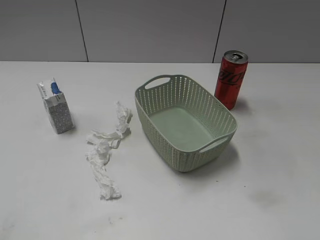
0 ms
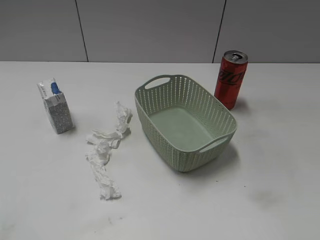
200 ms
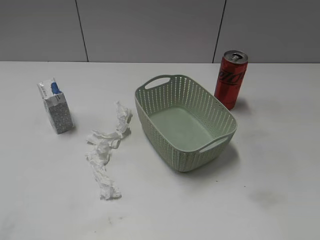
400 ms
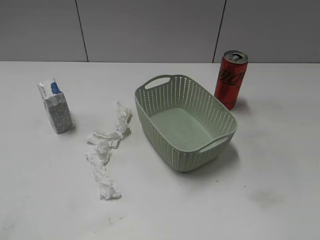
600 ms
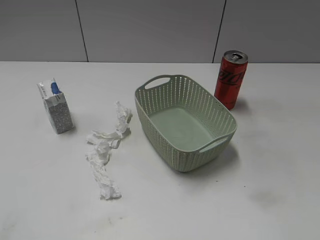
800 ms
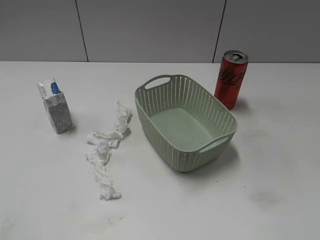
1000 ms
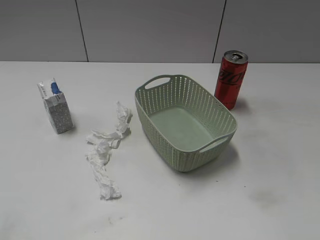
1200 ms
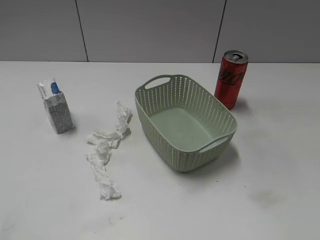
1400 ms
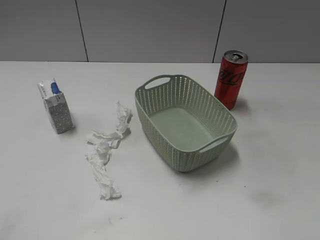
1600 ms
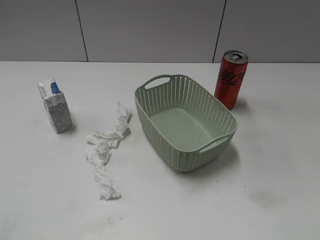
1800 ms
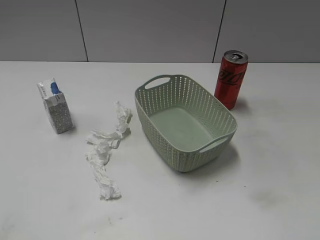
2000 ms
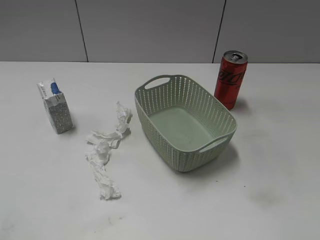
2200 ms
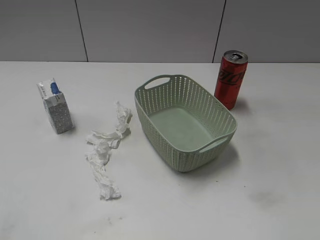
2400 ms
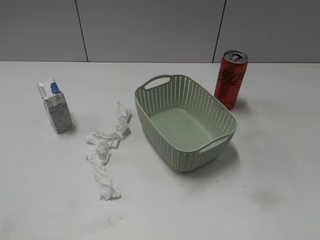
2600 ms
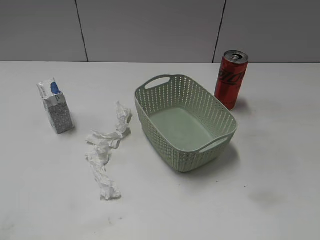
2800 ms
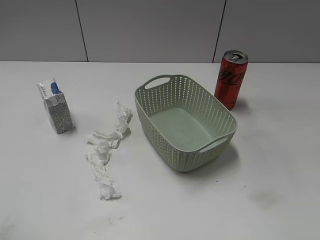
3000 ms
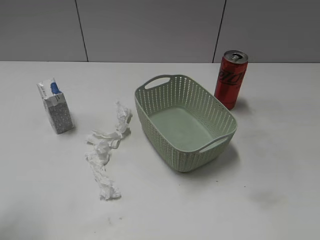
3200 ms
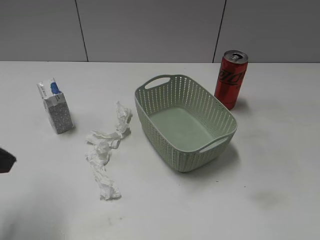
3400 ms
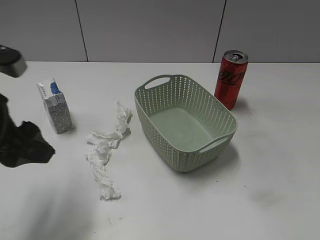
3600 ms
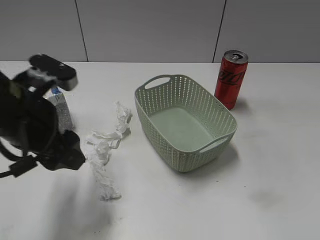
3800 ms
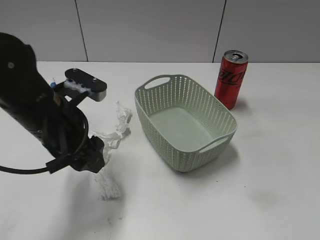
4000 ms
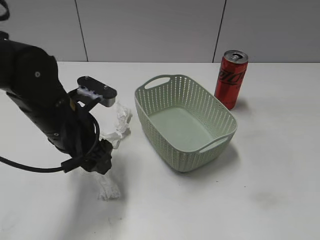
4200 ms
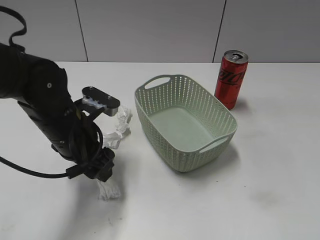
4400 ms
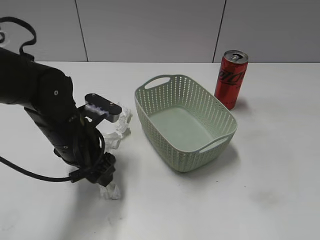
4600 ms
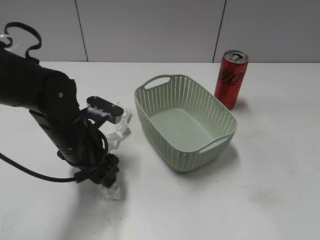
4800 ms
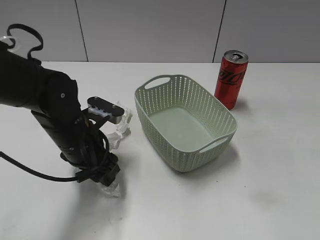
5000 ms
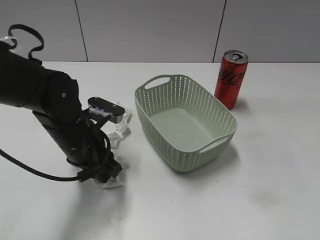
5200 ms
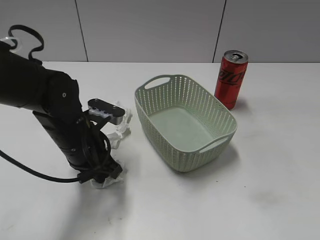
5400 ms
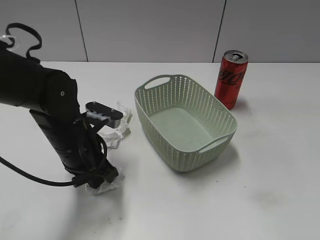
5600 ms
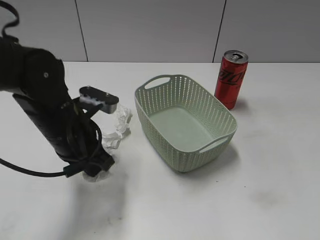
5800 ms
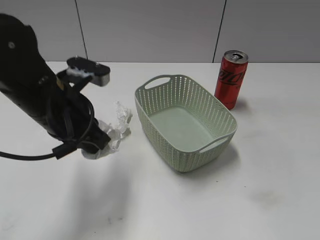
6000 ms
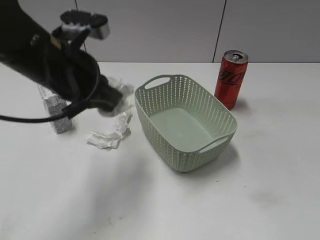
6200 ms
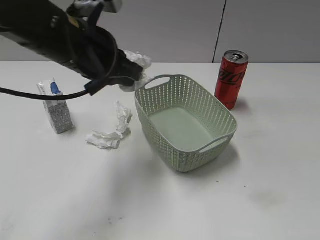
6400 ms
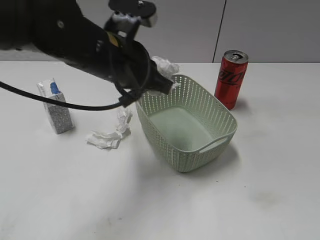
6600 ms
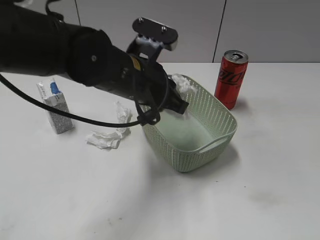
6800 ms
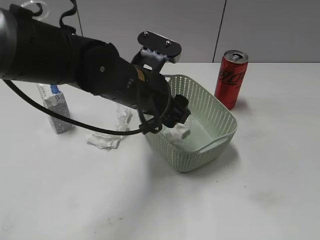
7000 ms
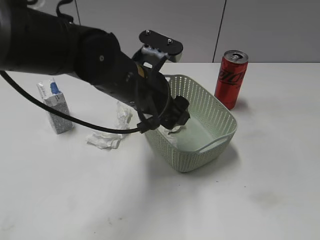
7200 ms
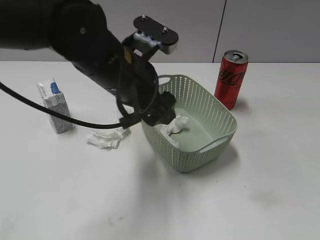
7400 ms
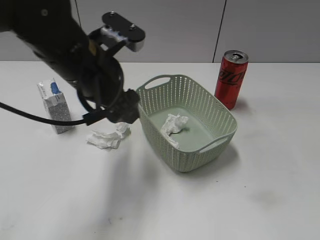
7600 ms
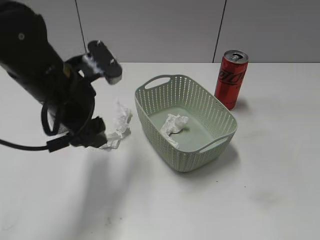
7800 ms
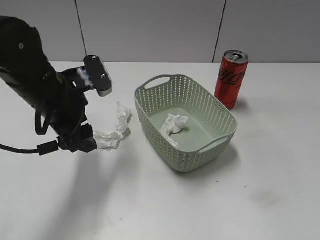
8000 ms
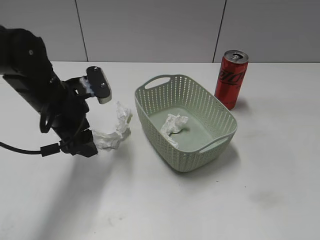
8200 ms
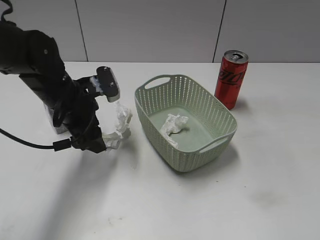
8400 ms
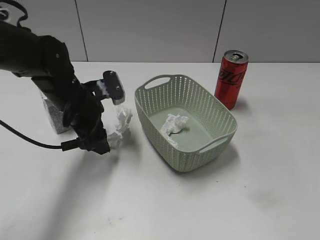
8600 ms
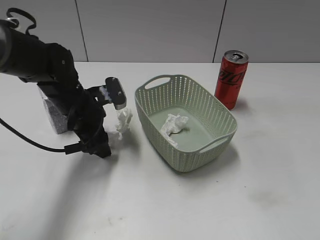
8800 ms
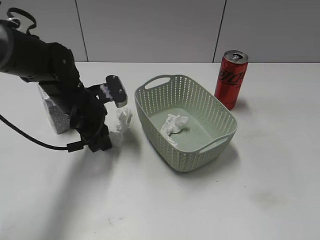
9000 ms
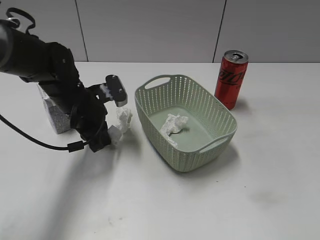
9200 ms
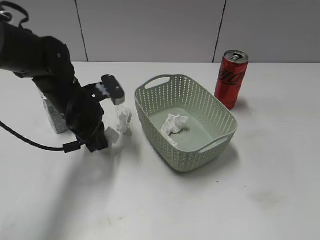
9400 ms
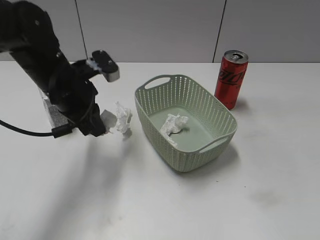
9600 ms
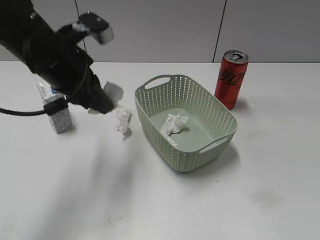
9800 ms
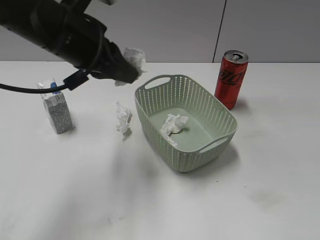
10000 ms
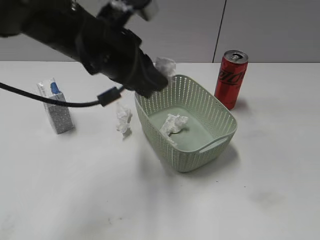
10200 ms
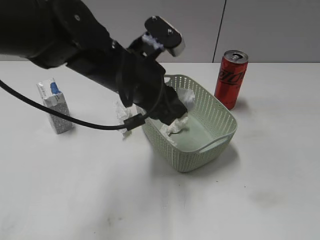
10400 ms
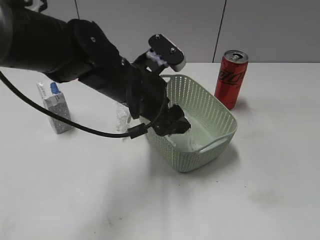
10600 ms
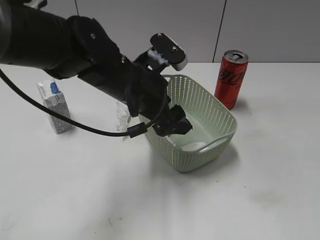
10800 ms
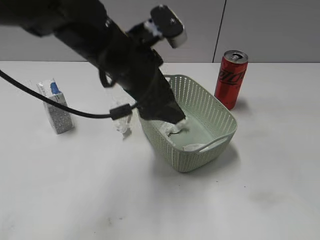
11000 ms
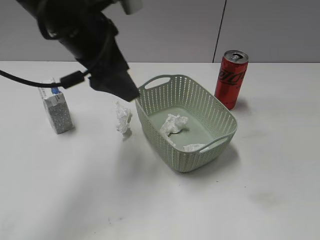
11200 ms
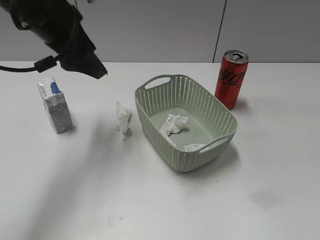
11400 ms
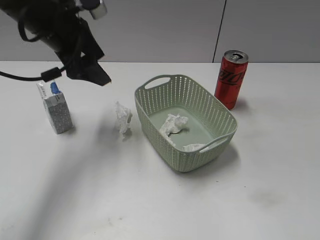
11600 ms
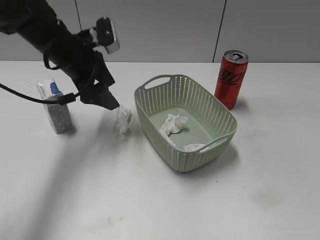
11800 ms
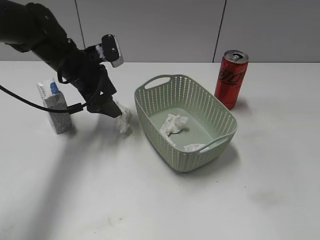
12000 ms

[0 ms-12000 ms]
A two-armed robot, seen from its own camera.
Step, 3400 ms to 5400 ms: Grasp the waste paper with left gripper.
Step, 5600 ms to 7000 ms: Place the waste paper in the basket with left gripper.
Step, 7200 ms to 9200 ms: Grasp the waste paper with left gripper.
Step, 9400 ms to 10600 ms: Place the waste paper in the basket with left gripper.
3000 ms to 4400 ms: The left gripper travels forward, to the right and downward by about 30 cm.
4400 ms to 6000 ms: The left gripper closes up.
6000 ms to 7600 ms: The left gripper moves to the right and upward, roughly 5 cm, and opens its fingers.
7600 ms to 9000 ms: The left gripper goes some 15 cm downward, forward and to the left, and closes up.
9000 ms to 10400 ms: The left gripper moves upward, to the right and backward, some 15 cm.
10400 ms to 12000 ms: The left gripper travels forward, to the left and downward by about 15 cm, and opens.

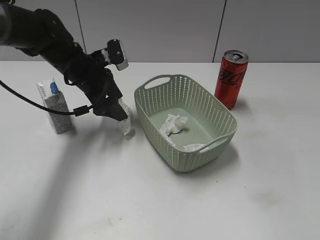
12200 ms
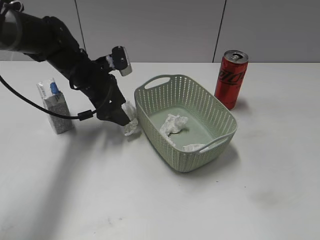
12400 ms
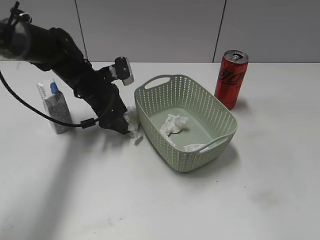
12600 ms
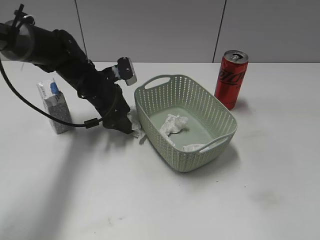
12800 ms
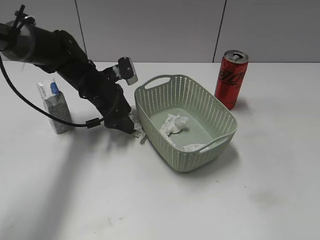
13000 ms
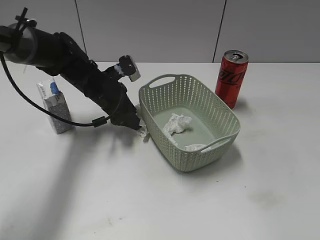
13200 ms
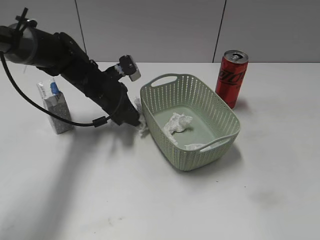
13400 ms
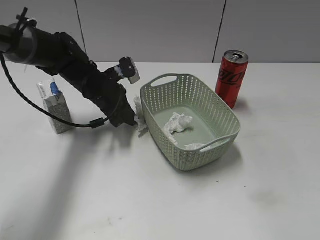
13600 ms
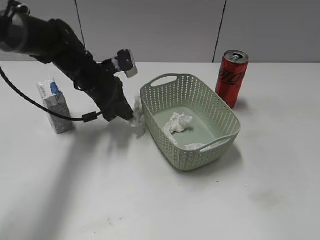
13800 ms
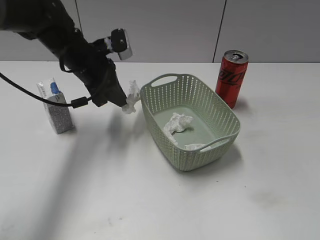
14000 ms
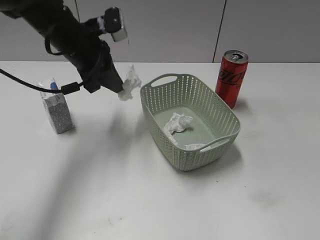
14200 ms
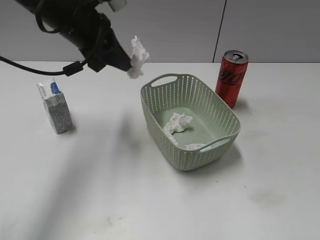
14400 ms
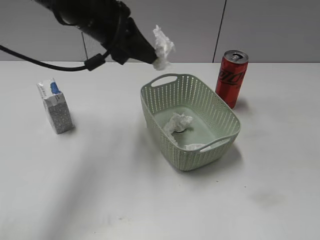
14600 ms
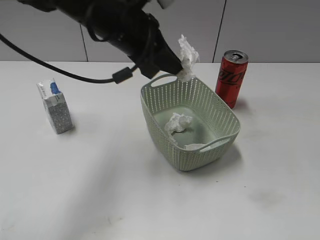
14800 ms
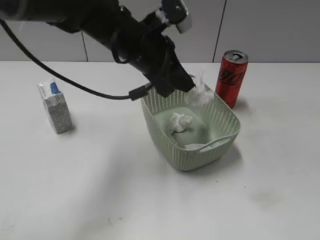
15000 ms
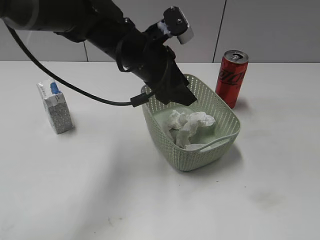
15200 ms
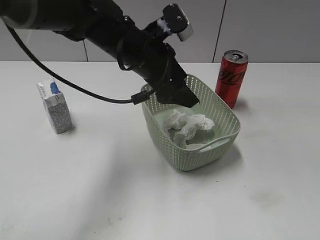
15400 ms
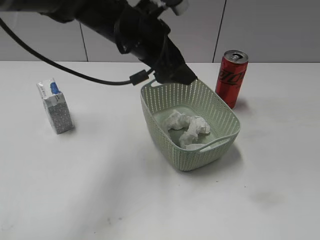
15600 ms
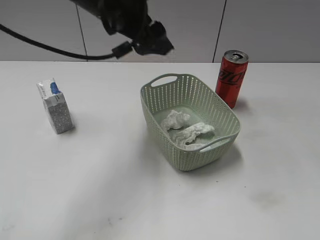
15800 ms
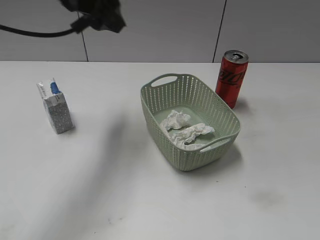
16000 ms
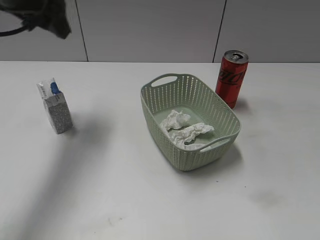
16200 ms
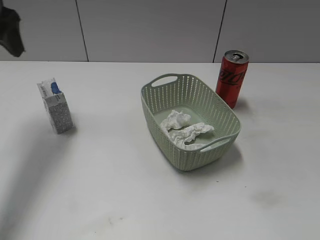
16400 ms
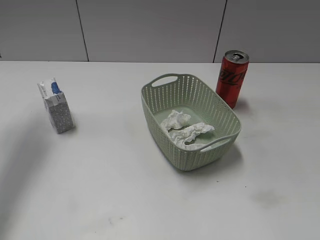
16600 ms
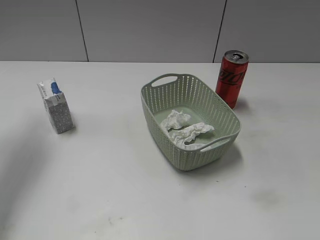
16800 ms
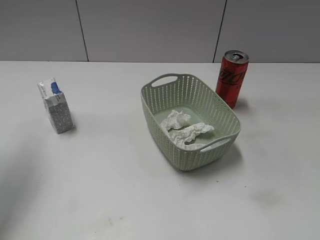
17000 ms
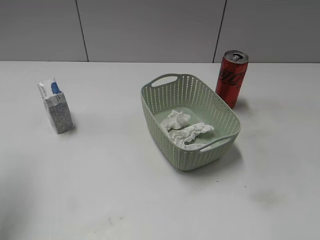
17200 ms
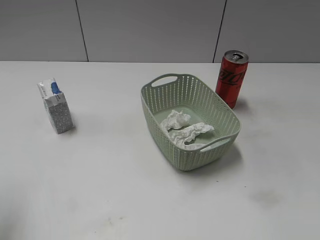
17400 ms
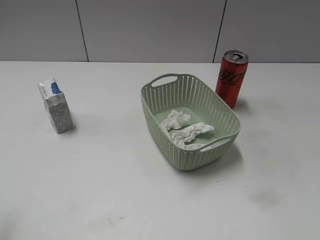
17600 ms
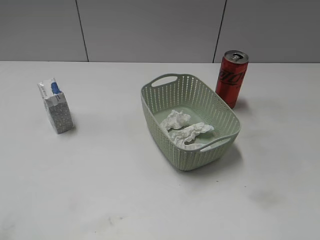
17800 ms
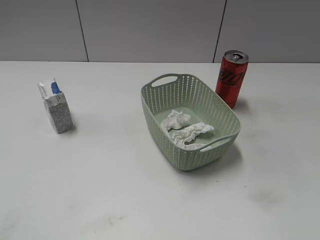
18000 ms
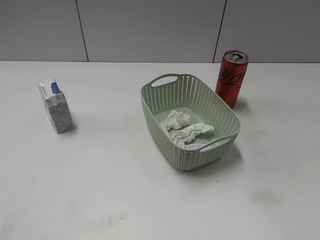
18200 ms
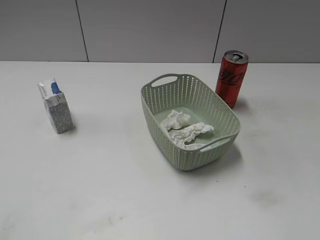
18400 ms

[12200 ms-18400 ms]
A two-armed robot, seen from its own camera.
Step, 12200 ms to 13800 ms: Grasp the waste paper with left gripper.
Step, 14000 ms to 15200 ms: Place the waste paper in the basket with left gripper.
12200 ms to 13800 ms: The left gripper closes.
13800 ms to 15400 ms: The left gripper goes roughly 15 cm upward, to the right and backward, and opens.
15400 ms to 16800 ms: The left gripper shifts about 30 cm to the left.
16800 ms to 18400 ms: The left gripper goes about 35 cm backward.

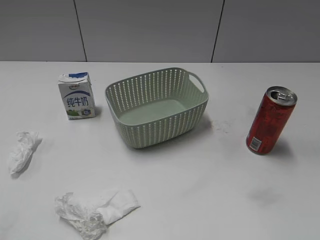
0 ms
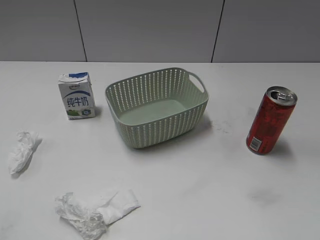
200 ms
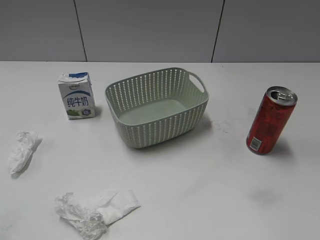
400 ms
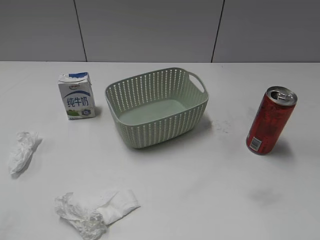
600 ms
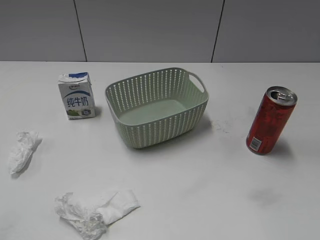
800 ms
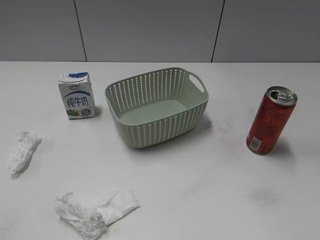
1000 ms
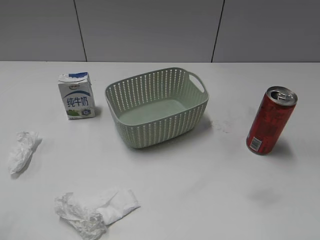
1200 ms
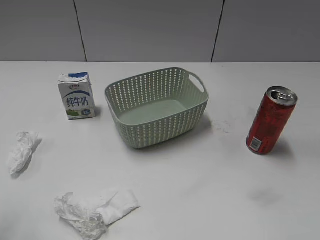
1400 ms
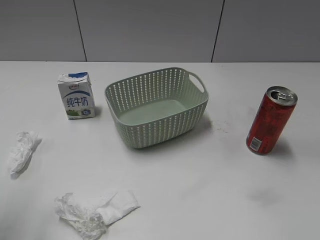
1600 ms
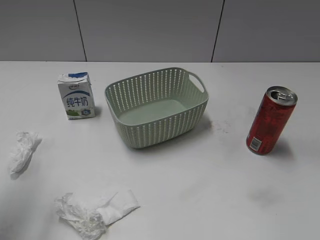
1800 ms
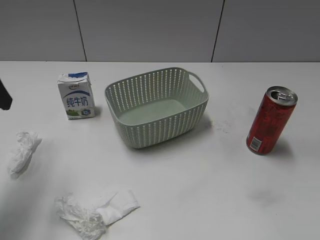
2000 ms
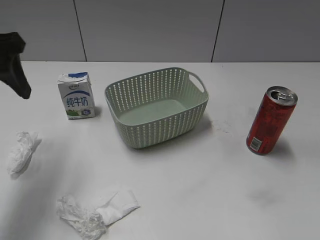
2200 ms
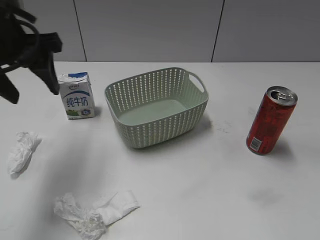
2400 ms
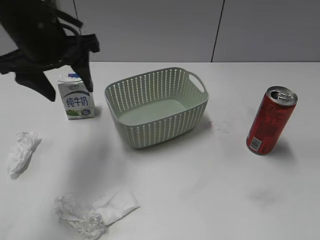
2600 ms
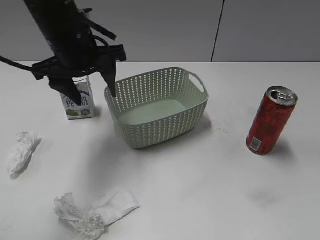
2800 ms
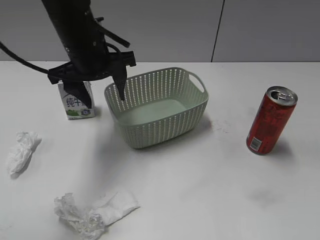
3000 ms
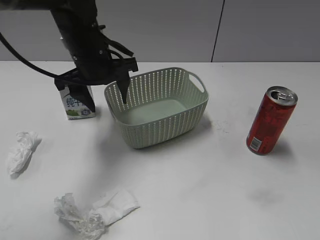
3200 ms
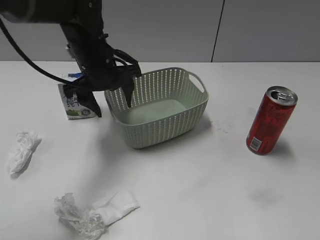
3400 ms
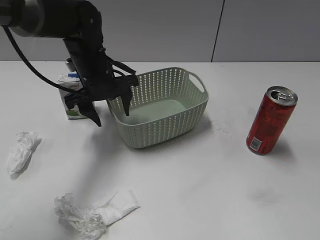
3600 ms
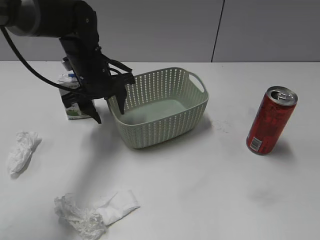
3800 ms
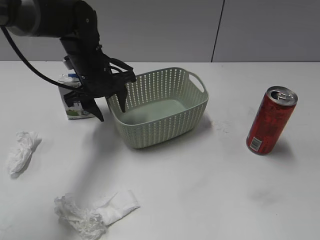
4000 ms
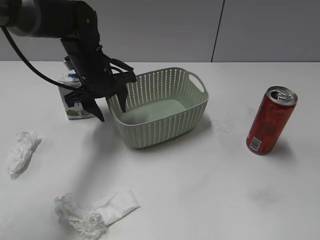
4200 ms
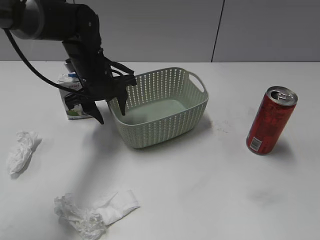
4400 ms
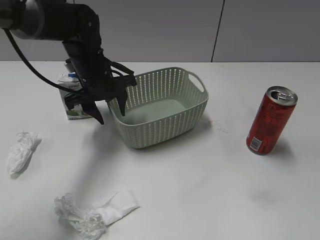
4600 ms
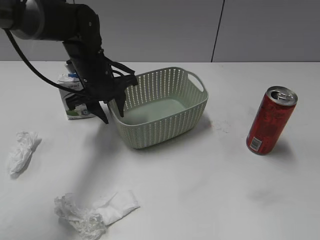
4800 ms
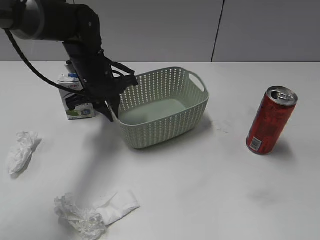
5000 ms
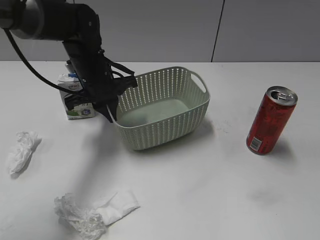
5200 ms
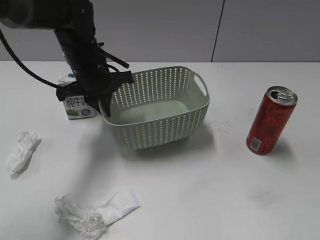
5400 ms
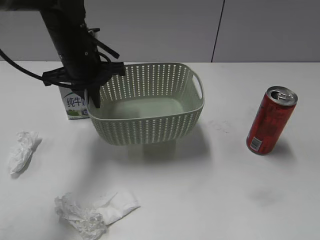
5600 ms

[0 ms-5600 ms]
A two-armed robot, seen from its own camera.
Step, 2000 ms to 5000 ms: Grasp the basket with left gripper.
1400 ms to 2800 ms: The left gripper is displaced forward and to the right by roughly 30 cm.
2800 ms to 4200 ms: The left gripper travels downward and forward by about 10 cm.
4200 ms to 5600 ms: The left gripper ends up approximately 5 cm from where it was, and closes up.
